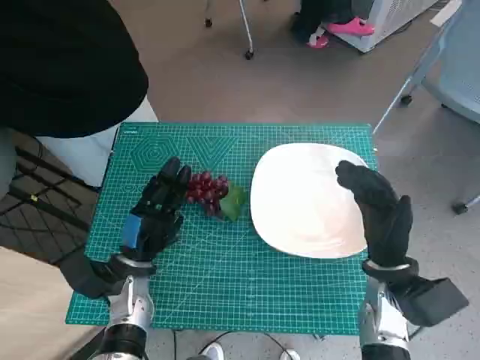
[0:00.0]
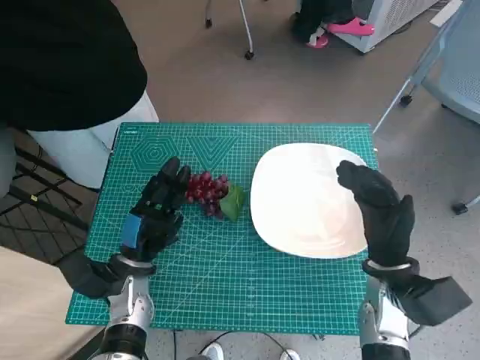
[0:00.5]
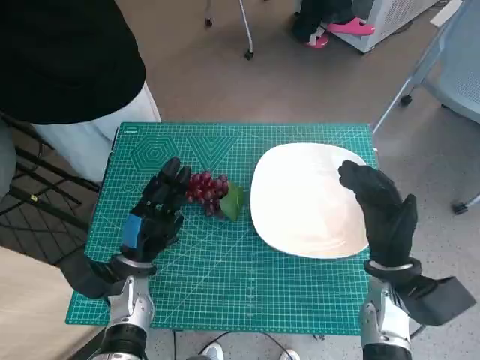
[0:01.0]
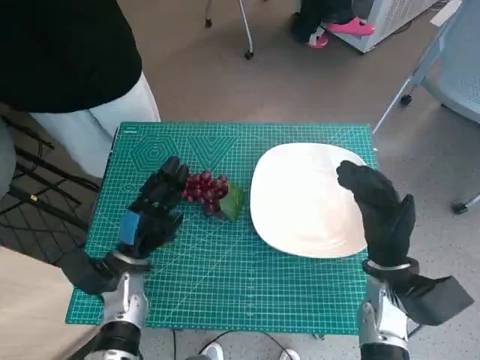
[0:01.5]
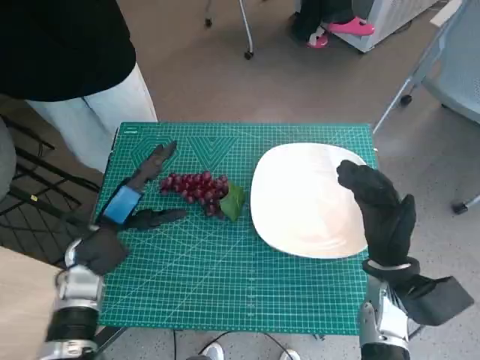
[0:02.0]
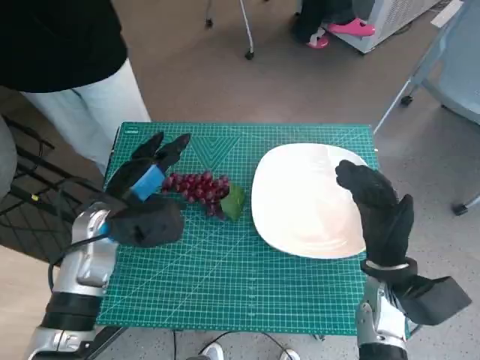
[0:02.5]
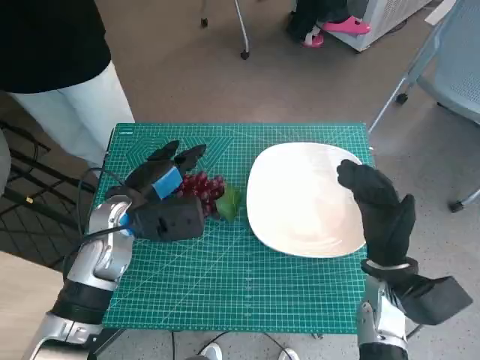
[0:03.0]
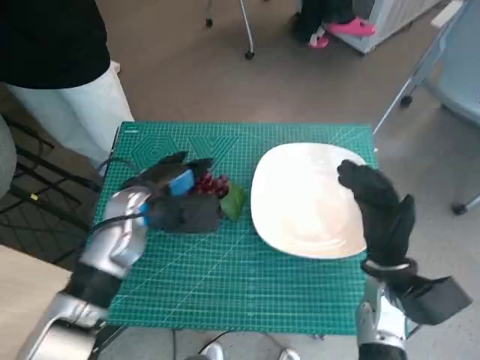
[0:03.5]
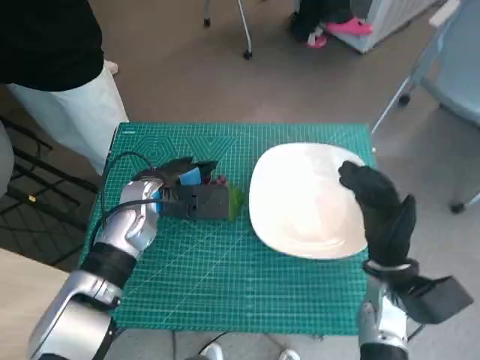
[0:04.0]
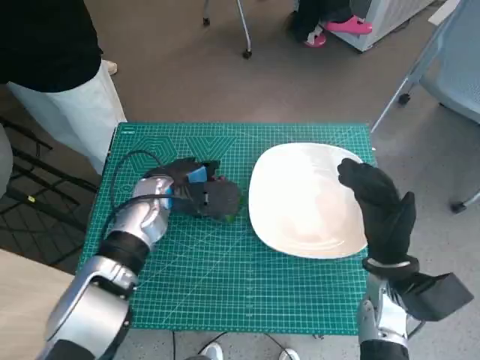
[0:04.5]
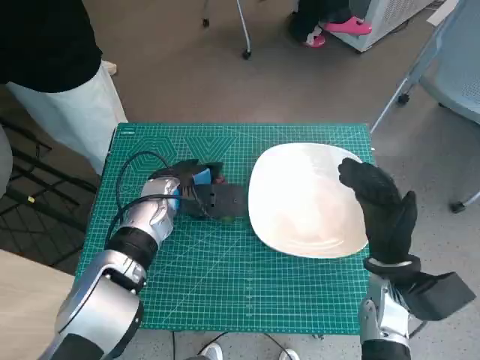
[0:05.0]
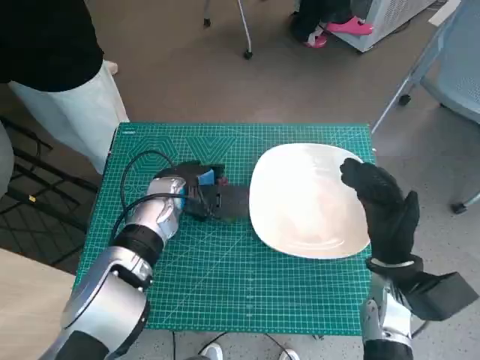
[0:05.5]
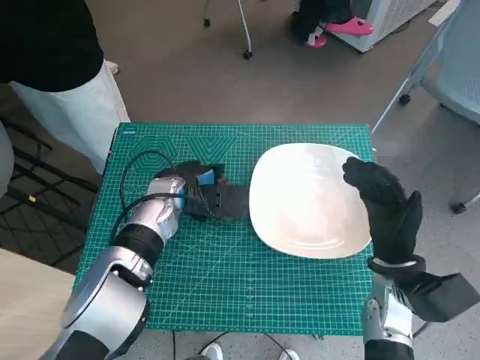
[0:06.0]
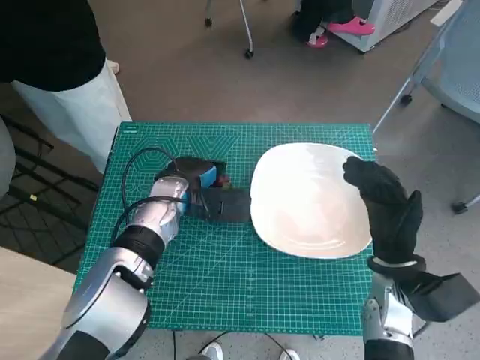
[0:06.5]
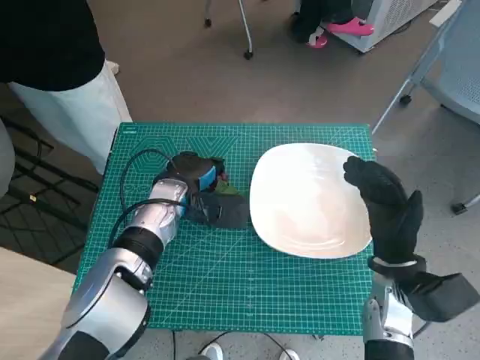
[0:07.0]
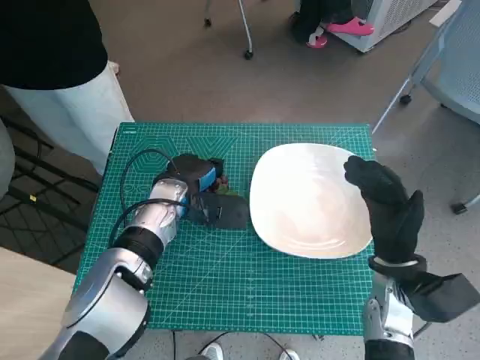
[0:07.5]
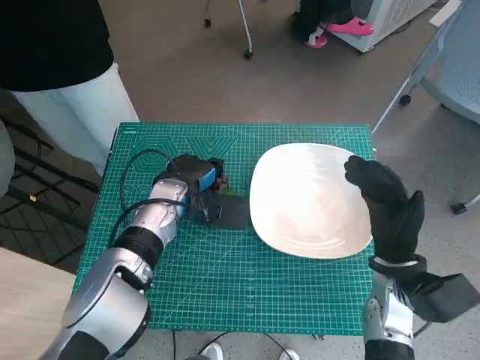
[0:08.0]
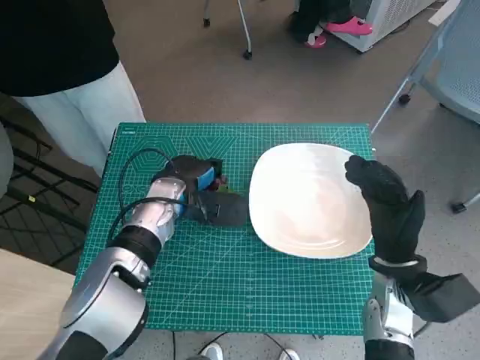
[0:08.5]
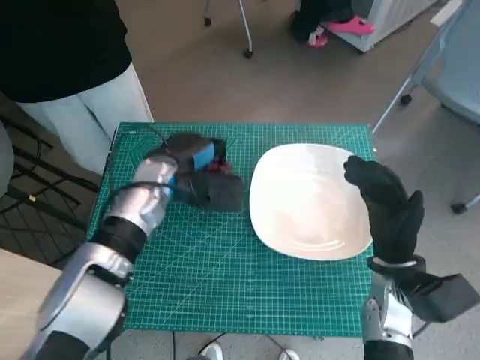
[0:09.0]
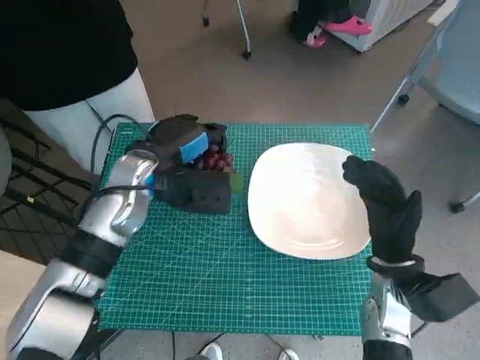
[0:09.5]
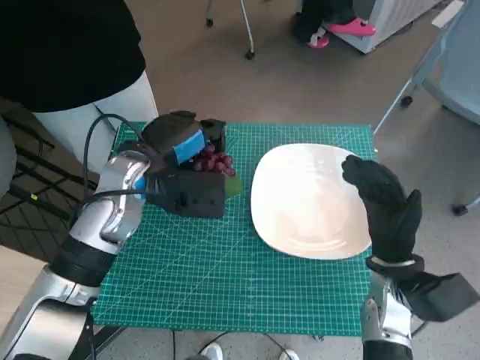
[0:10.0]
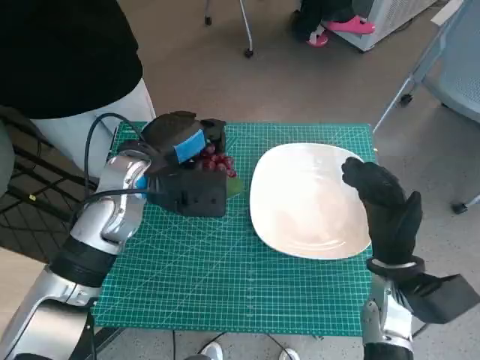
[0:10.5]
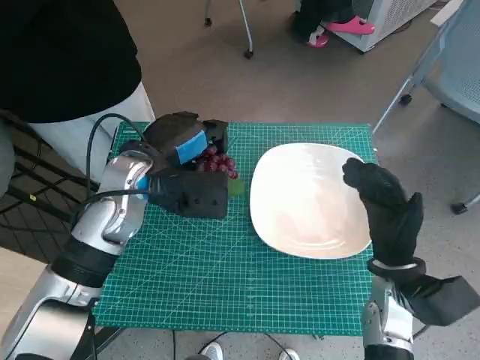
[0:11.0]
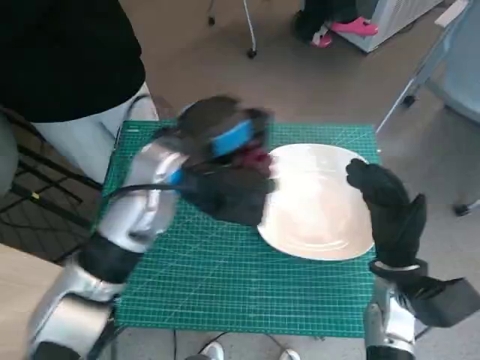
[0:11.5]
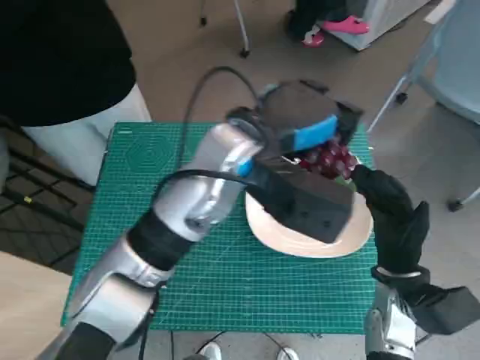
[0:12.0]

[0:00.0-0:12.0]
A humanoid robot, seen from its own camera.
Task of the whole recording: Pick up the grapes and put them on the plate.
Step, 0:00.0 to 0:06.5: Grasp the grapes with left hand.
0:02.0 to 0:04.0: The left hand is displaced to the right, forward and upward by about 10 cm.
0:04.0 to 0:08.0: The hands stay close to where they were, moving slightly.
0:08.0 to 0:10.0: The left hand is displaced upward by some 10 cm.
0:10.0 to 0:12.0: The left hand goes roughly 15 cm to the right and upward.

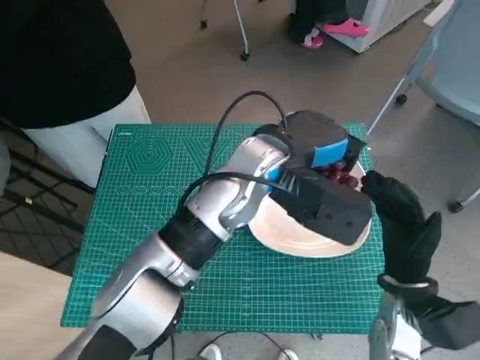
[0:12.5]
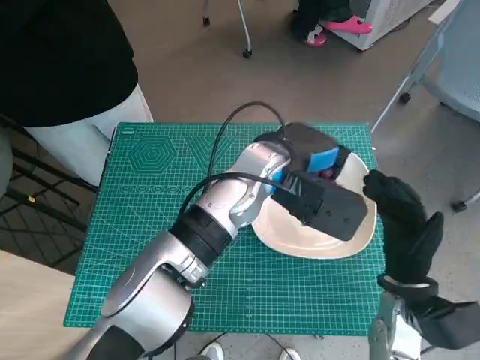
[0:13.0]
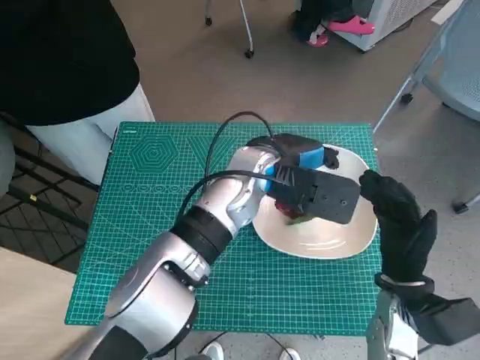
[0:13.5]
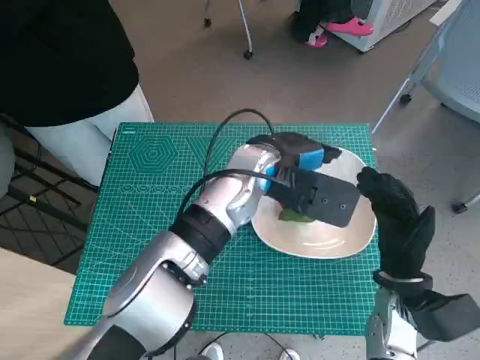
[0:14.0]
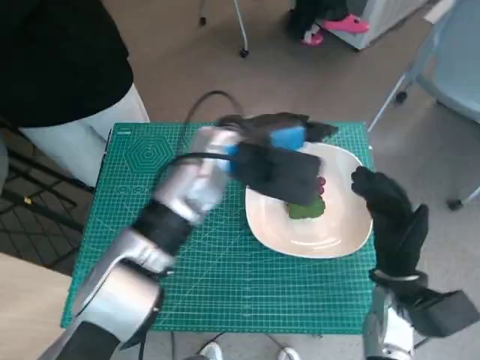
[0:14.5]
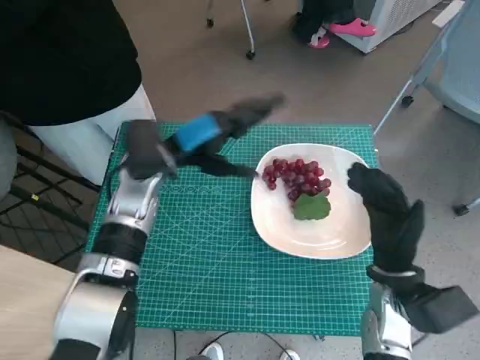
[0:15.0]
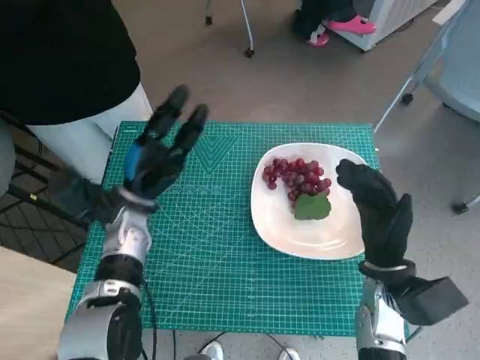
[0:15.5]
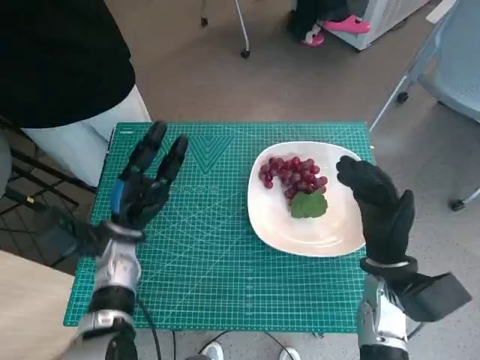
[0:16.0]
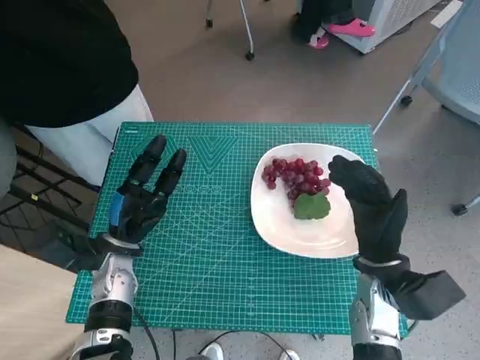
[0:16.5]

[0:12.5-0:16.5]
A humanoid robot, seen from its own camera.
Task of the whole recording: Pick up the grapes and put them on the plate.
0:12.5 to 0:14.5: The left hand moves some 5 cm.
0:14.5 to 0:16.5: The left hand is displaced downward, to the left and backward by some 25 cm.

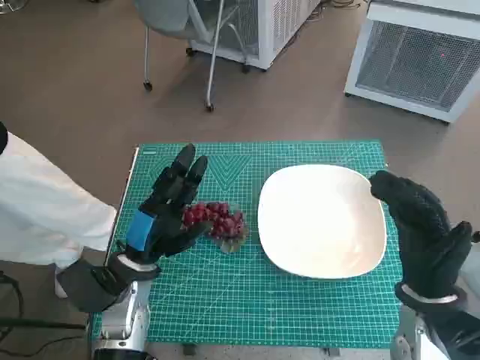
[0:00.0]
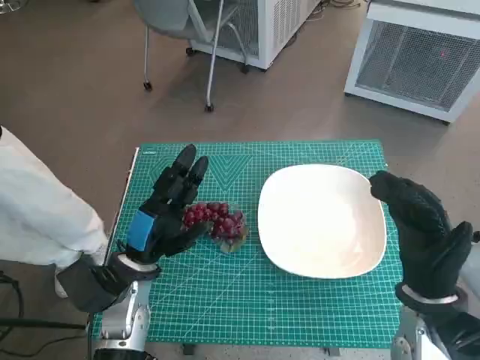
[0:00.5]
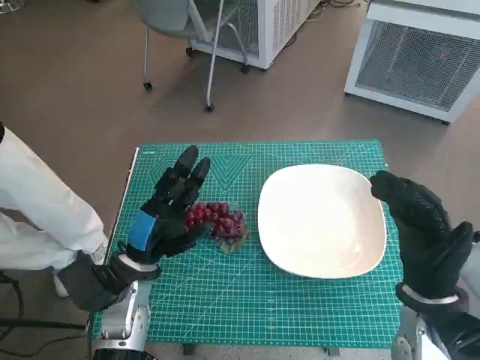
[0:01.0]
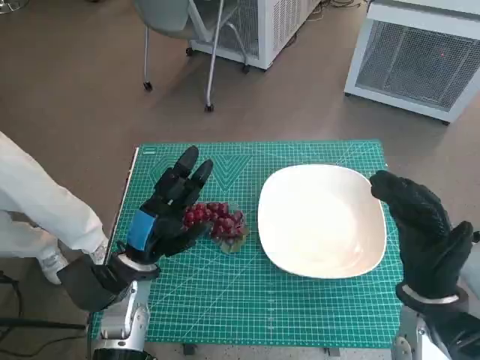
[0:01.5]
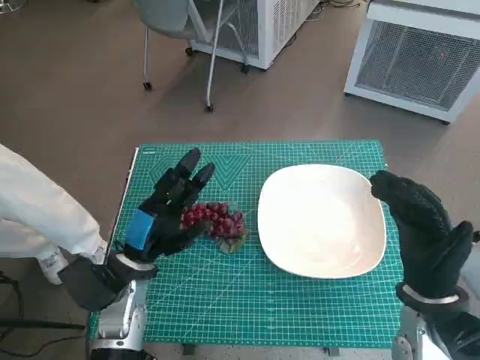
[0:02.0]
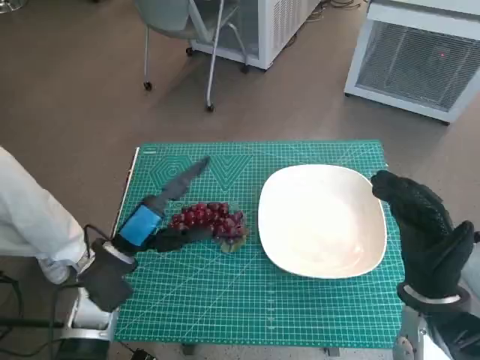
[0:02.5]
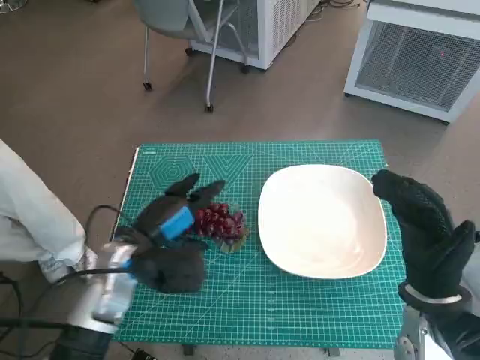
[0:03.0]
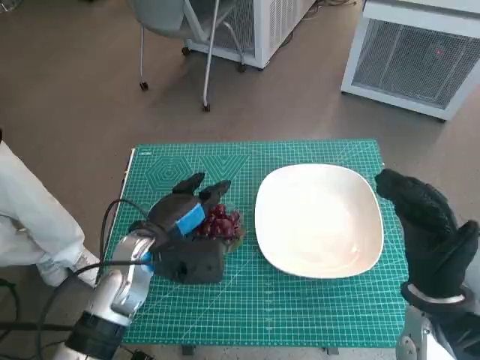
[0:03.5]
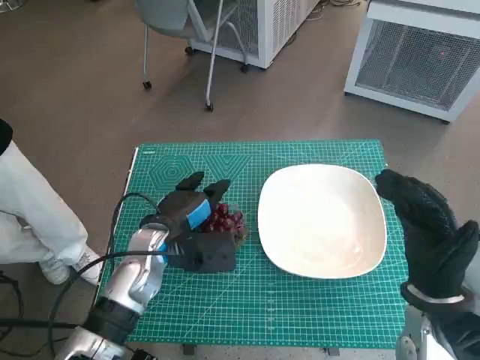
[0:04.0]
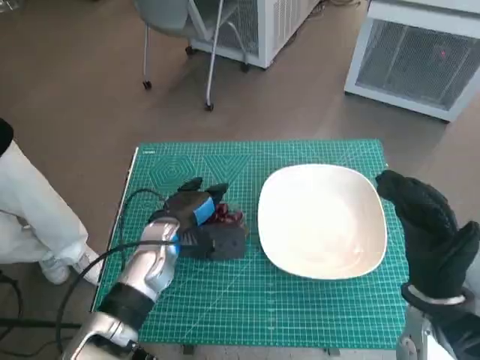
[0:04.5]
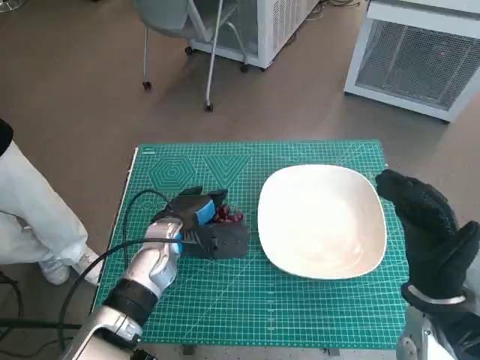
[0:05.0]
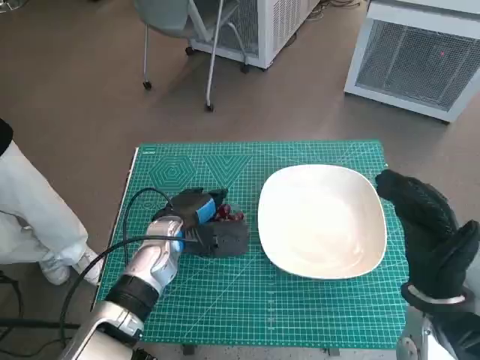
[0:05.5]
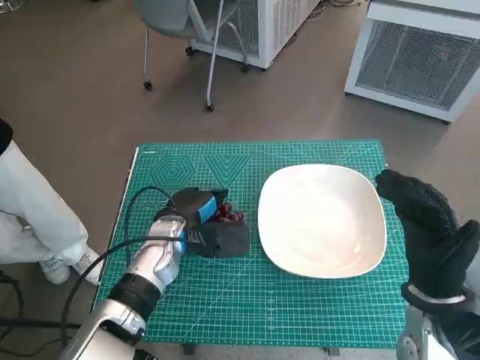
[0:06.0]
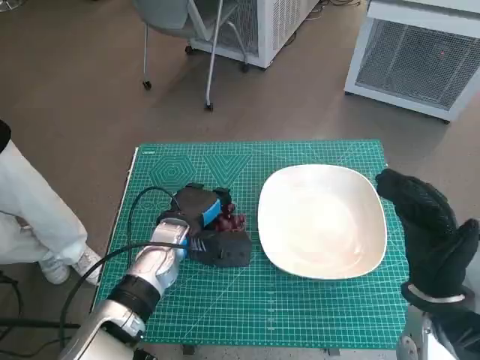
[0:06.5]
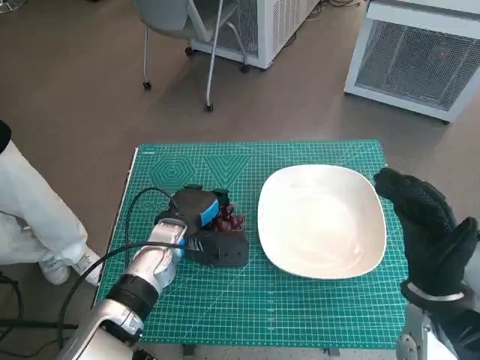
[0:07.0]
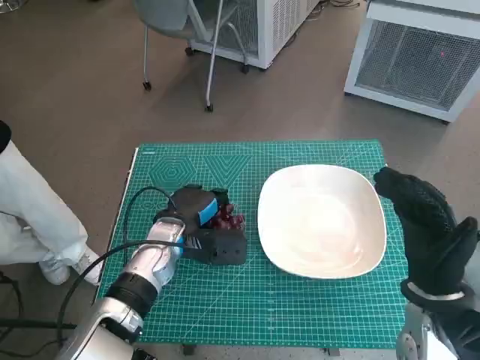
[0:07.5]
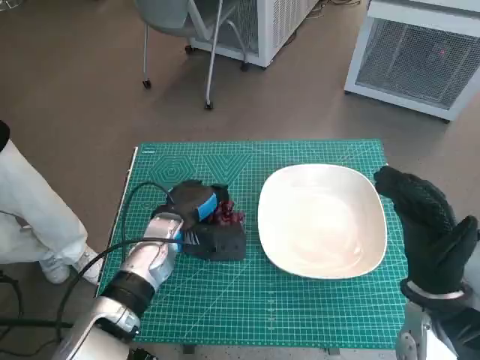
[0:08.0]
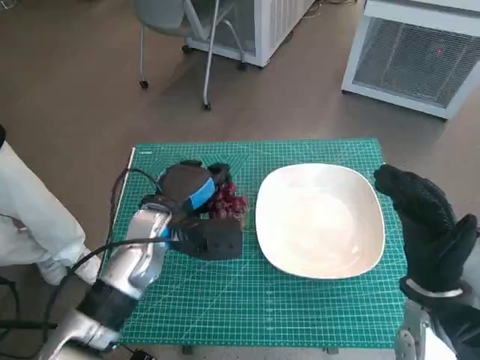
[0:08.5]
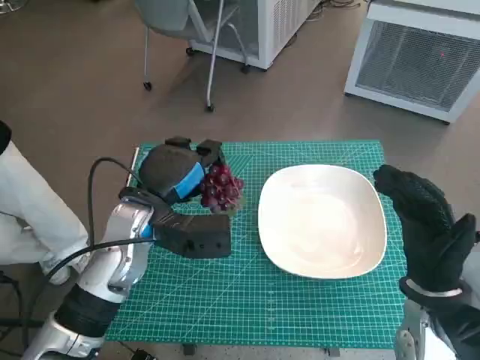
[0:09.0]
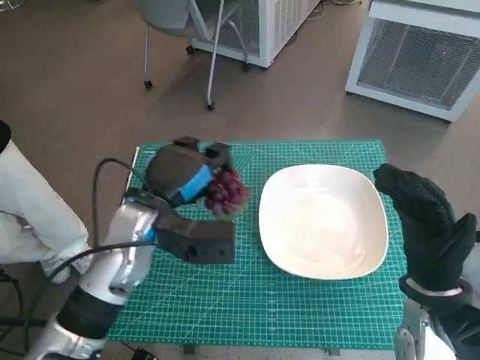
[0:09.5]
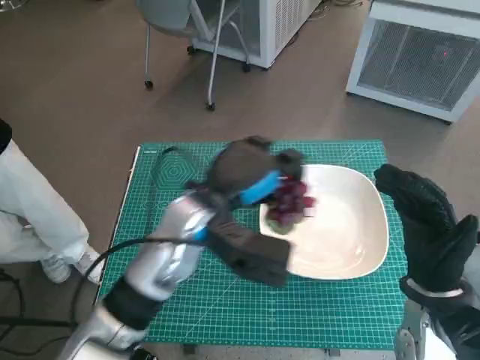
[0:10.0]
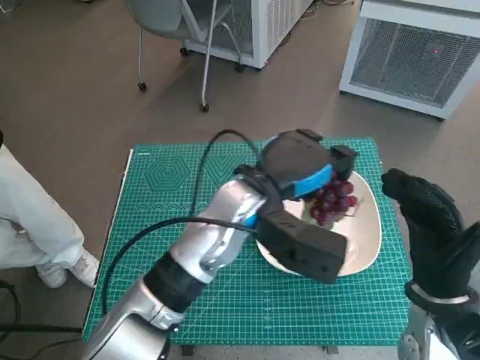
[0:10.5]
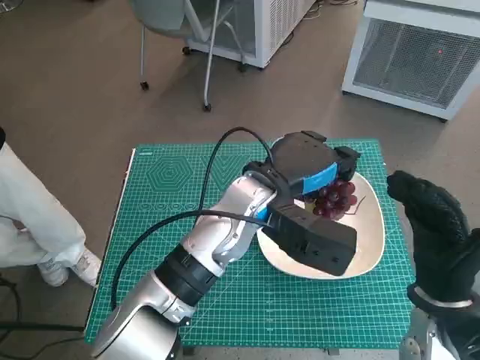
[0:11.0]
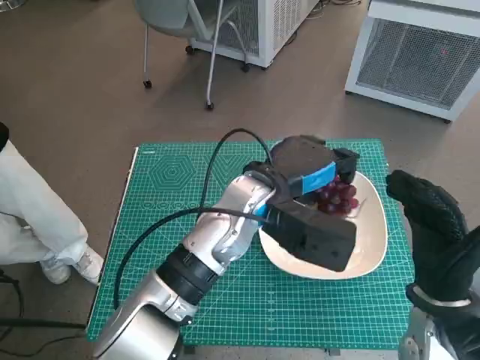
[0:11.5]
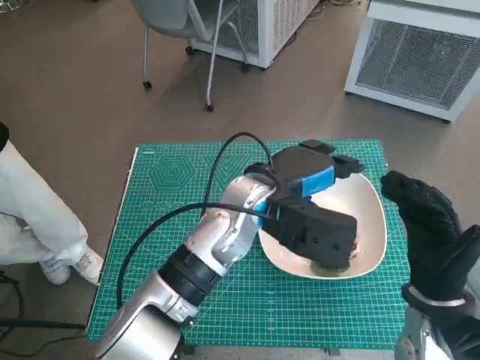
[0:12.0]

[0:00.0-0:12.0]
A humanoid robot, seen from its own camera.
Task of the whole recording: Pick up the grapes and put them on the plate.
Step, 0:00.0 to 0:06.0: Grasp the grapes with left hand.
Step, 0:06.5 to 0:11.5: Place the grapes in the plate with left hand.
0:02.0 to 0:04.0: The left hand ends up about 5 cm from where it was.
0:04.0 to 0:08.0: There are only small adjustments of the hands.
0:08.0 to 0:10.0: The left hand moves upward and to the right, about 10 cm.
0:10.0 to 0:12.0: The left hand is displaced to the right by roughly 10 cm.
